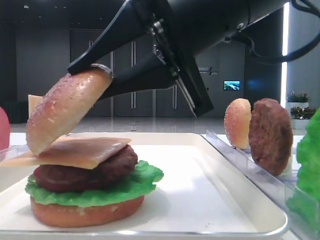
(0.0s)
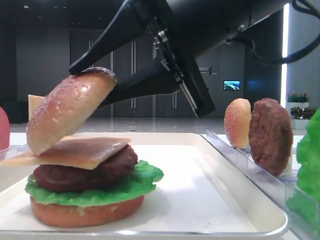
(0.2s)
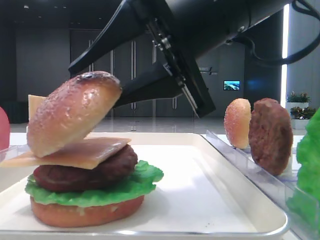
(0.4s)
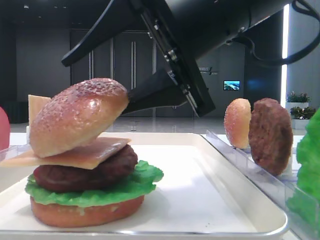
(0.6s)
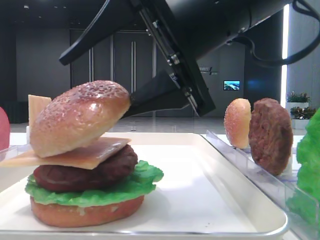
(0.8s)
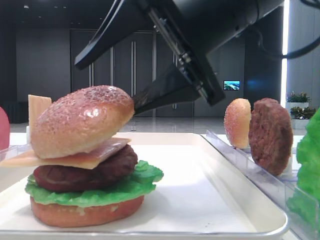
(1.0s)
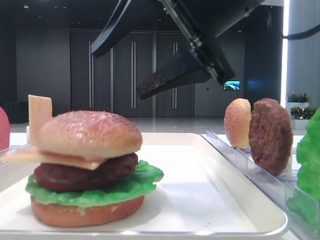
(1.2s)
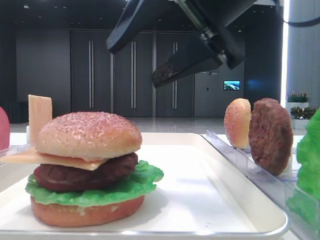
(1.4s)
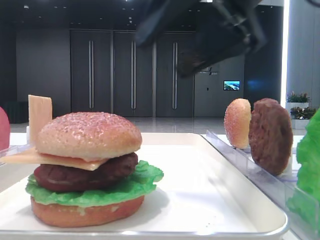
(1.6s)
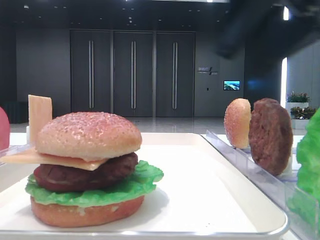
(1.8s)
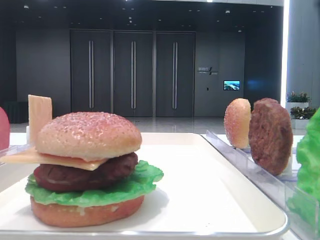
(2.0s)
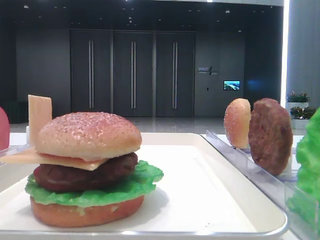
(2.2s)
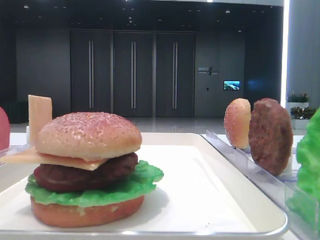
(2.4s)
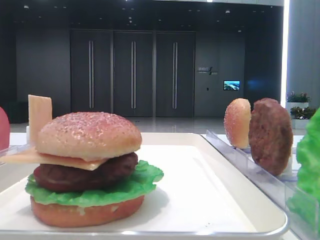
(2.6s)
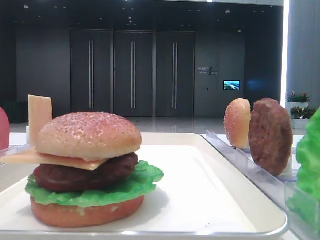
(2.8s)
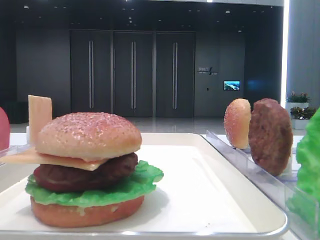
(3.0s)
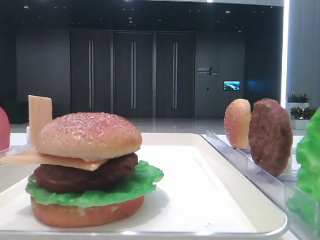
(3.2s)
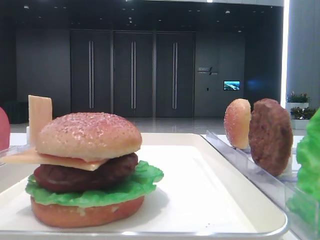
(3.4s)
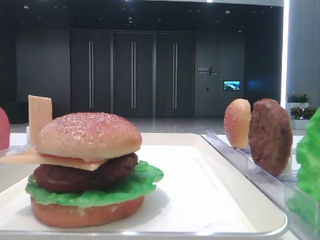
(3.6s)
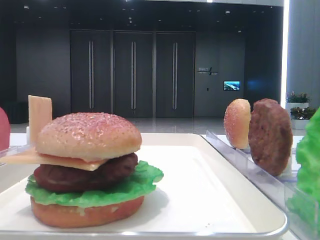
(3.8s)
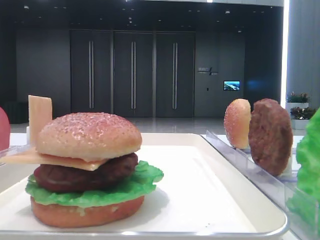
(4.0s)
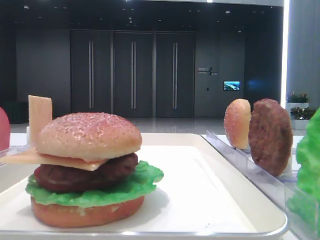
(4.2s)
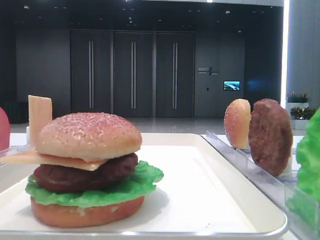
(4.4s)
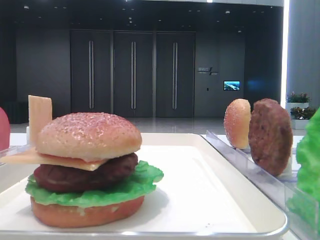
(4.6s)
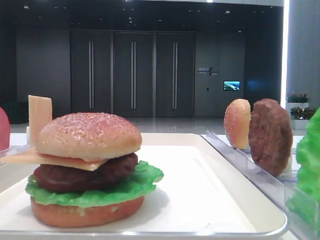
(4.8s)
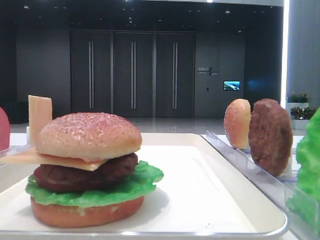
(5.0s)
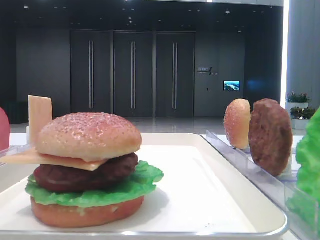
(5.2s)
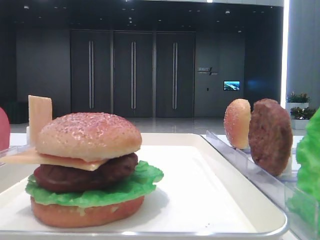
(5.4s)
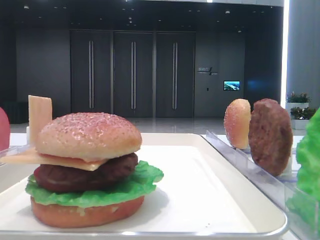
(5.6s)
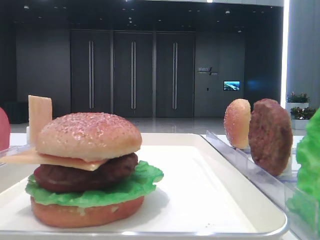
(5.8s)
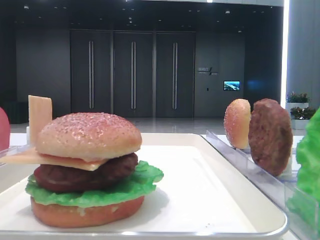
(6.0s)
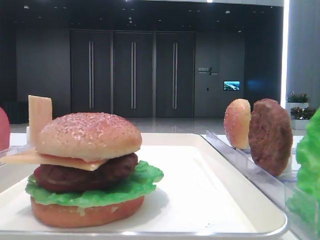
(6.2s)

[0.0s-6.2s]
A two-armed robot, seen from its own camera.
0.0s to 1.6s: The right gripper goes about 5 cm upward, and opens.
1.6s to 3.2s: The right gripper goes approximately 25 cm to the right, backward and upward, and closes.
4.6s to 6.2s: Both grippers stay about where they are.
